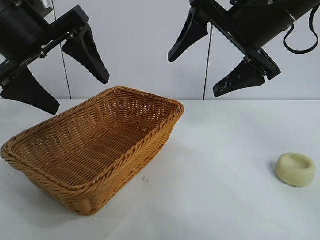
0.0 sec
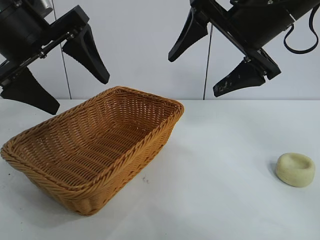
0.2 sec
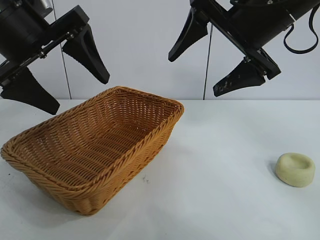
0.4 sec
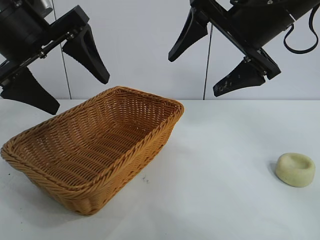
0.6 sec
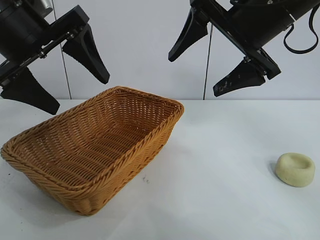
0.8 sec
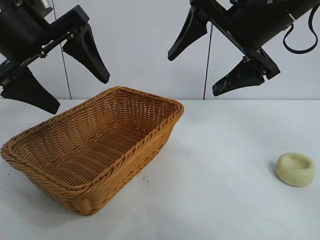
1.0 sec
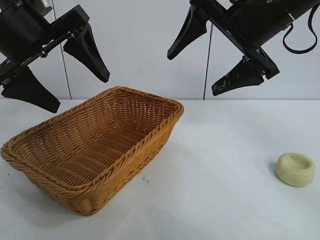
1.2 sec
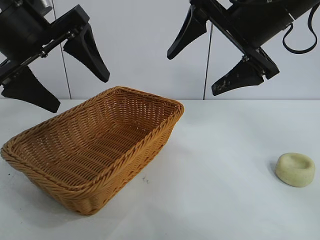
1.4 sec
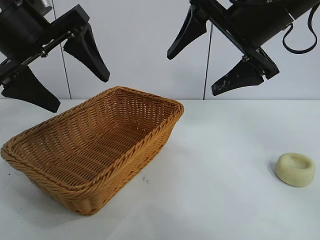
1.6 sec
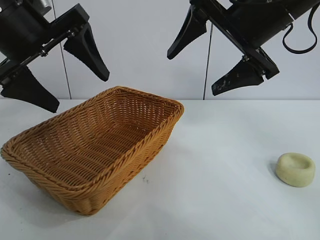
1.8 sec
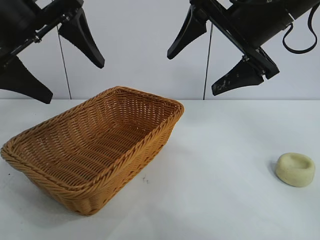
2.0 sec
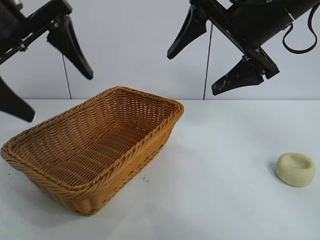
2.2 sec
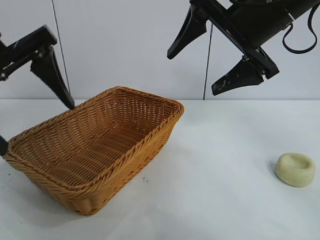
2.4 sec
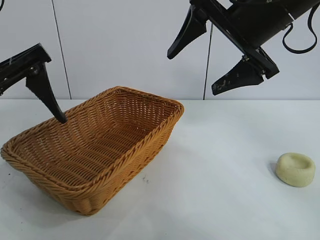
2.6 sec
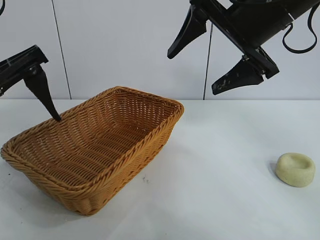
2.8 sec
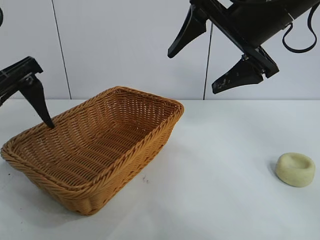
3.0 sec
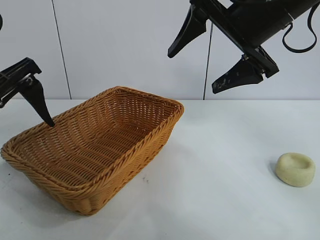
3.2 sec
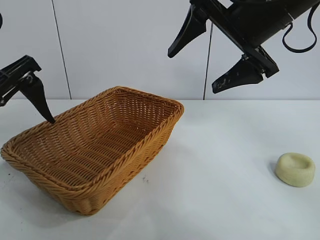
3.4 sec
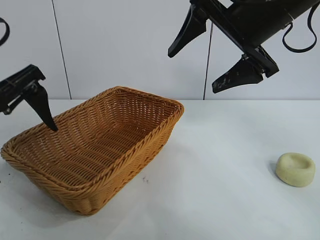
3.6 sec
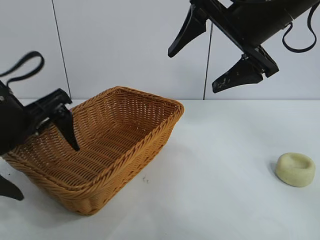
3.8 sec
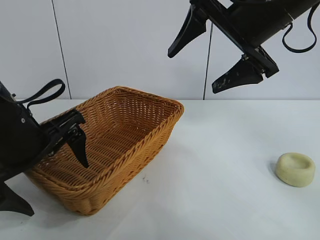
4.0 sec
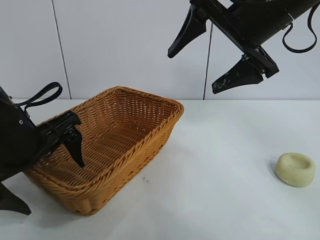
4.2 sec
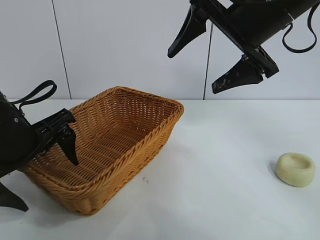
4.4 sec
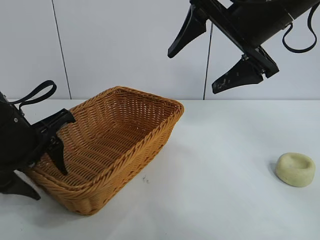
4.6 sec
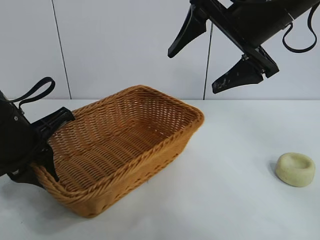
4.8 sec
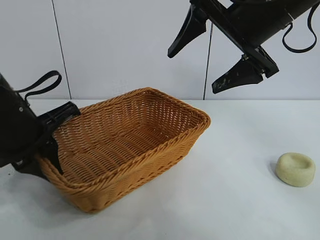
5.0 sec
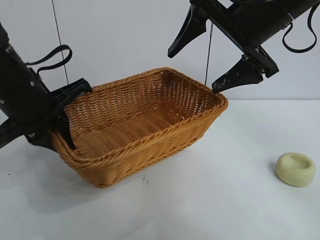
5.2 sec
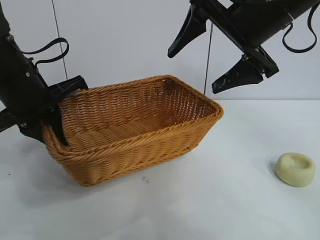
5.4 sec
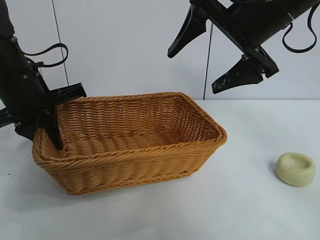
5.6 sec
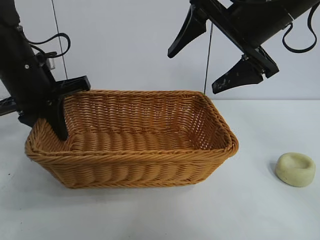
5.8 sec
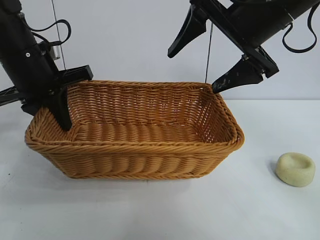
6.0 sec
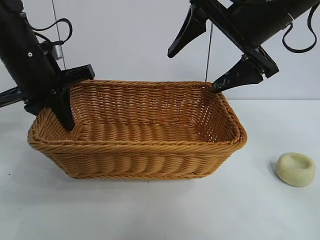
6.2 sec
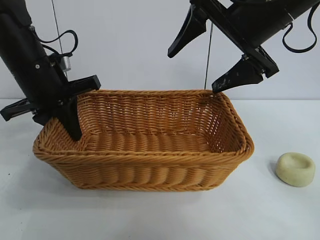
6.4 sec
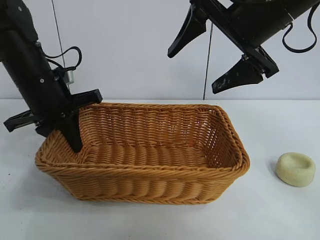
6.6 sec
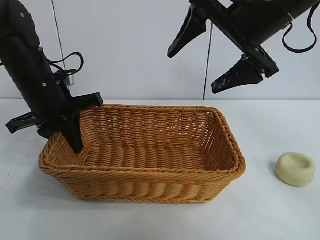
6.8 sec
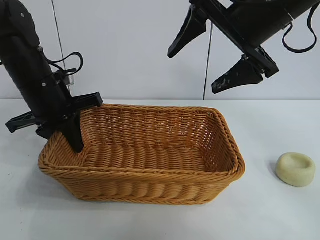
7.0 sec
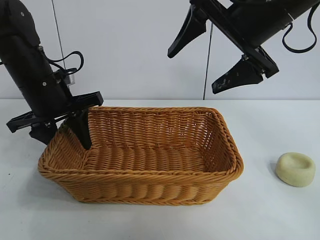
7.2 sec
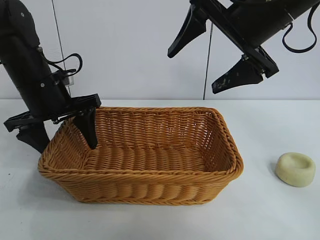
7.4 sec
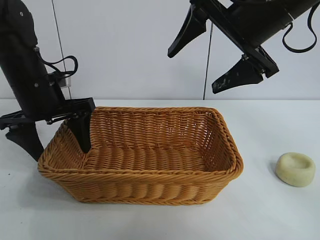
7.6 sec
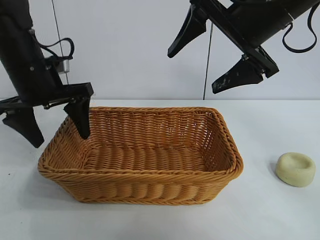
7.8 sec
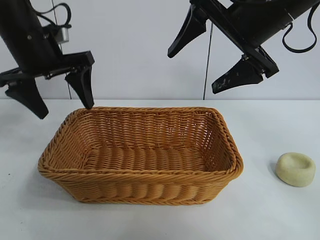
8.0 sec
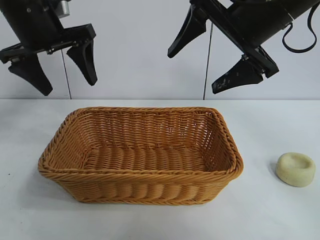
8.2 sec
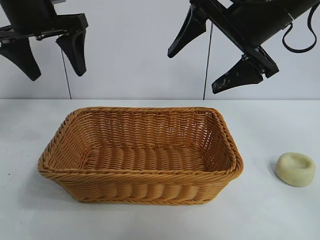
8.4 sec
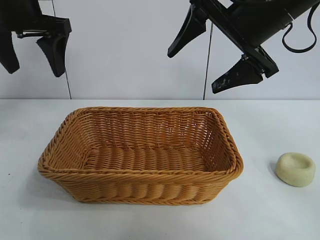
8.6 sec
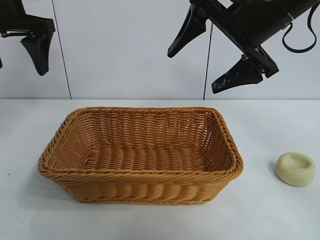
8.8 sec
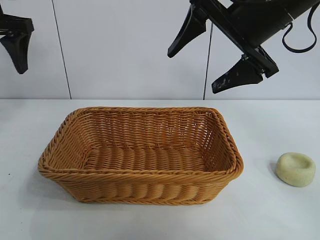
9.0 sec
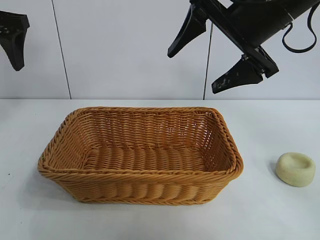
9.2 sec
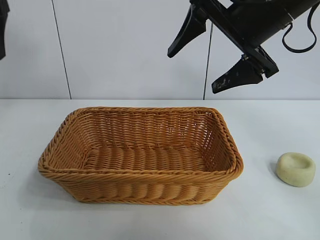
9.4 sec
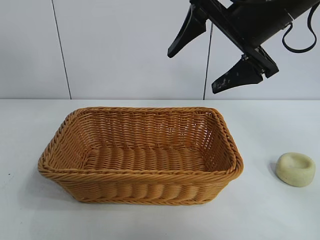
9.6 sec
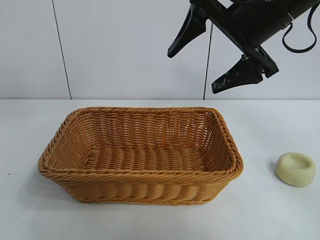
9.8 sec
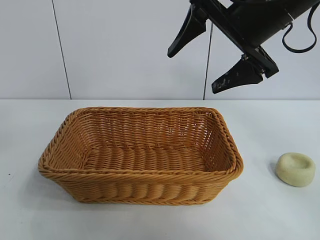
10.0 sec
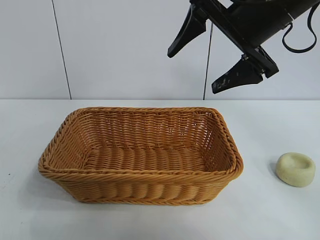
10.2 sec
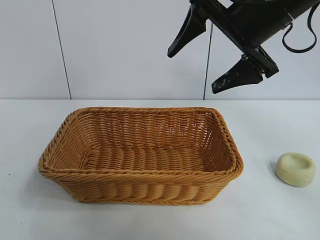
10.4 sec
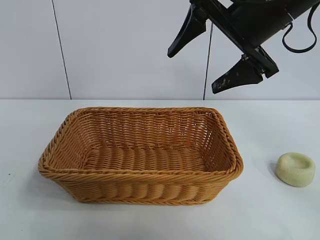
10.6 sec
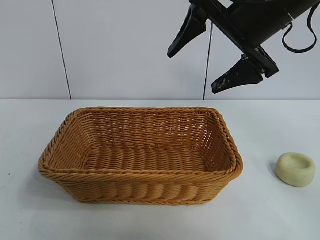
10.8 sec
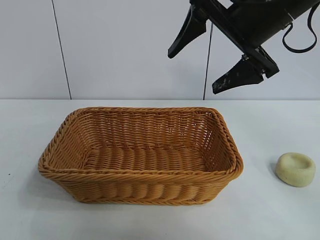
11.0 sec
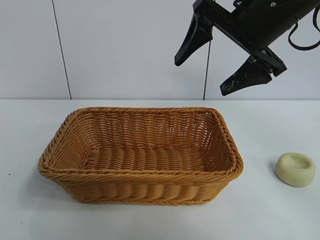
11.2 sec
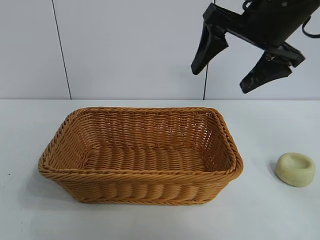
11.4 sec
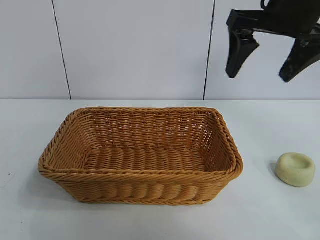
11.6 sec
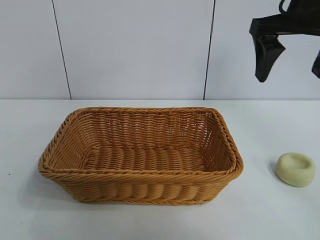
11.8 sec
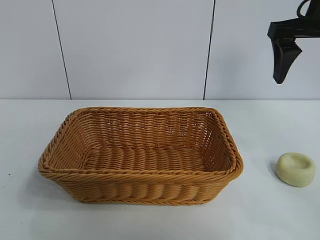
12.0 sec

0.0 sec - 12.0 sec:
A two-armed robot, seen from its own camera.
Task of the whole recording: pick up the egg yolk pastry and put it into the basket.
Step, 1.6 sec - 4.8 sec: Grasp the basket with left gripper.
Step, 5.0 sec - 7.6 sec: Place the basket in the center of view with left gripper.

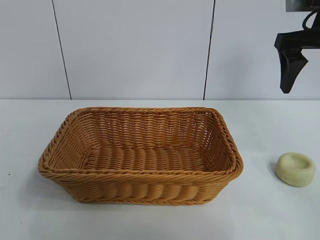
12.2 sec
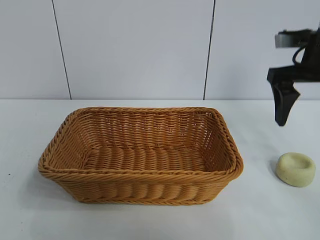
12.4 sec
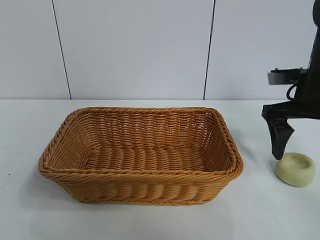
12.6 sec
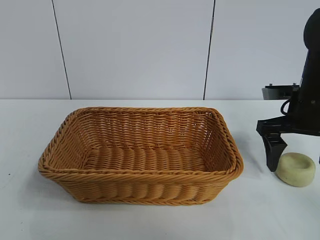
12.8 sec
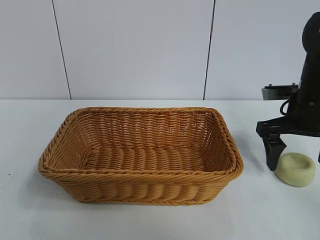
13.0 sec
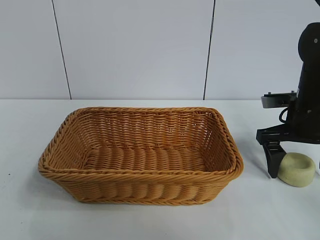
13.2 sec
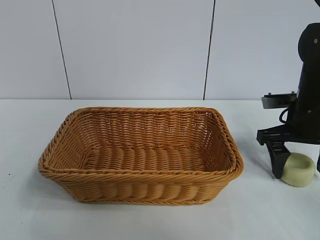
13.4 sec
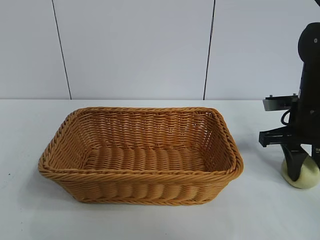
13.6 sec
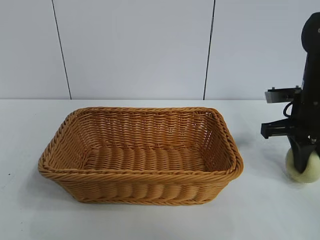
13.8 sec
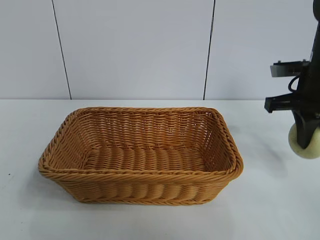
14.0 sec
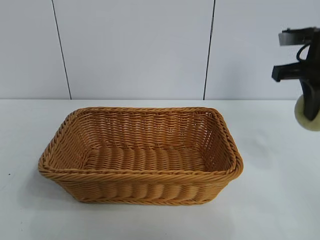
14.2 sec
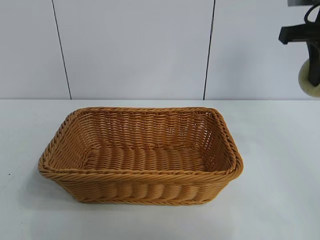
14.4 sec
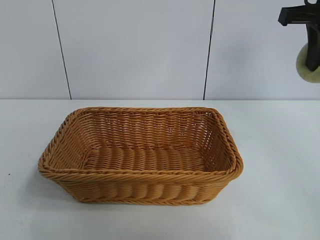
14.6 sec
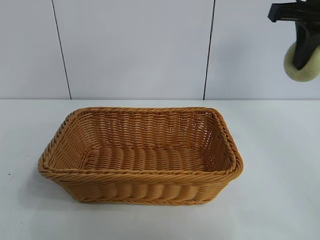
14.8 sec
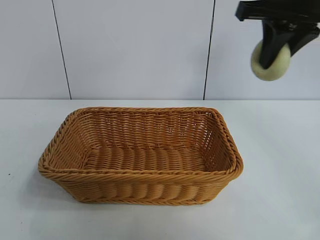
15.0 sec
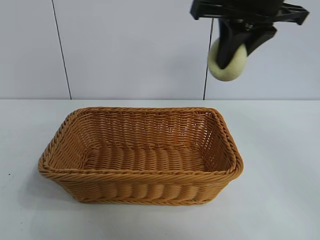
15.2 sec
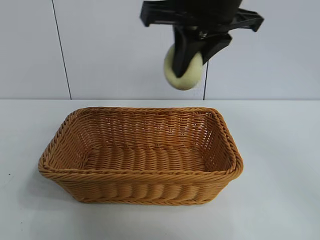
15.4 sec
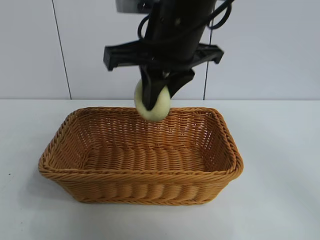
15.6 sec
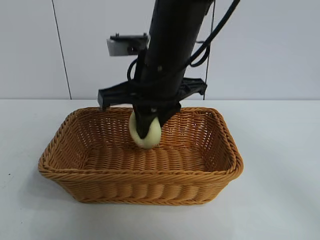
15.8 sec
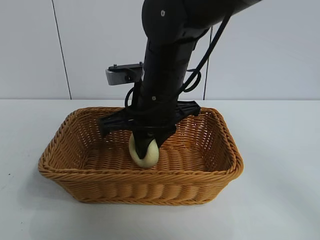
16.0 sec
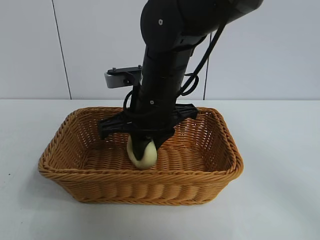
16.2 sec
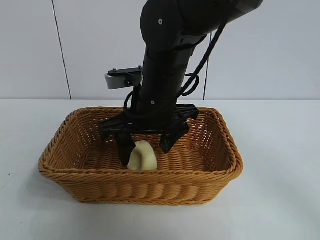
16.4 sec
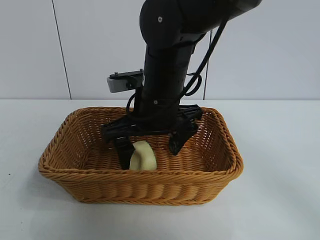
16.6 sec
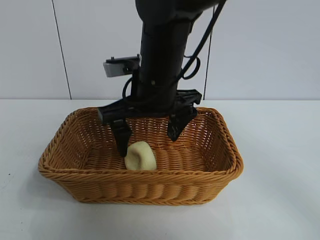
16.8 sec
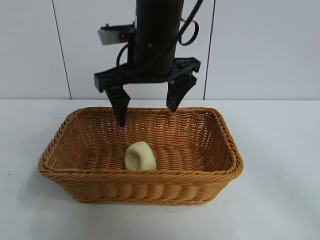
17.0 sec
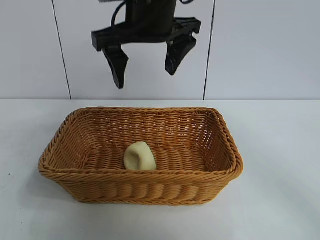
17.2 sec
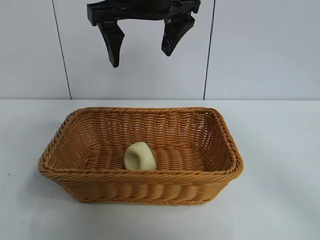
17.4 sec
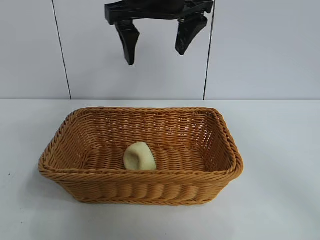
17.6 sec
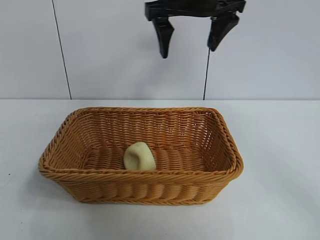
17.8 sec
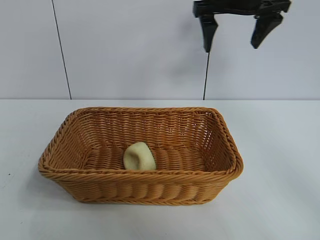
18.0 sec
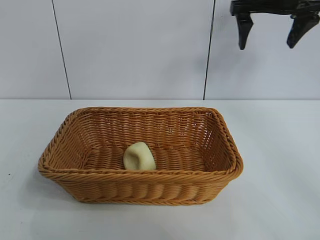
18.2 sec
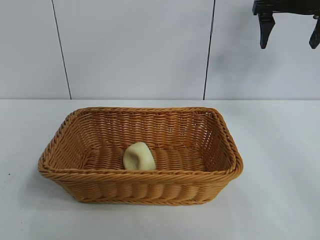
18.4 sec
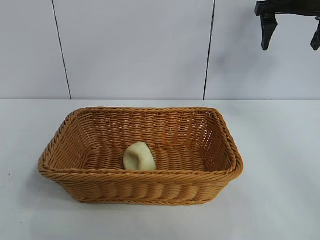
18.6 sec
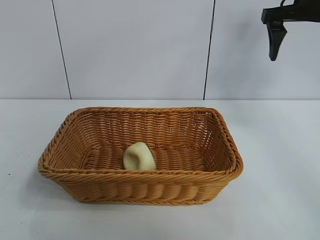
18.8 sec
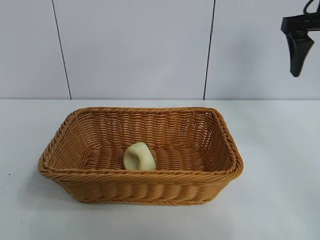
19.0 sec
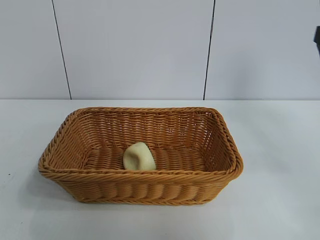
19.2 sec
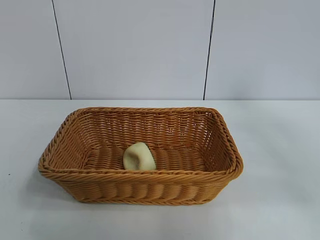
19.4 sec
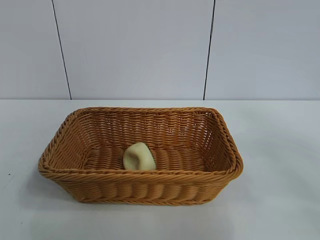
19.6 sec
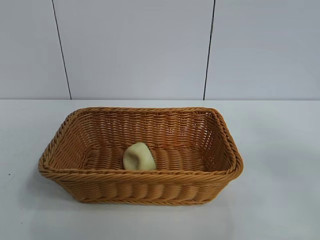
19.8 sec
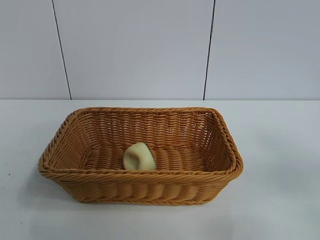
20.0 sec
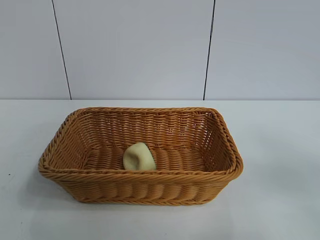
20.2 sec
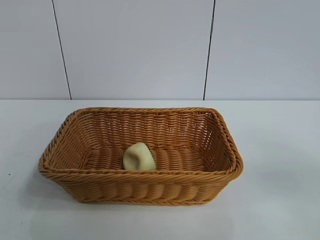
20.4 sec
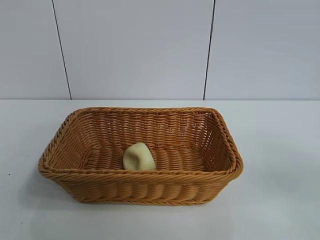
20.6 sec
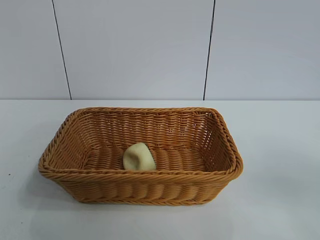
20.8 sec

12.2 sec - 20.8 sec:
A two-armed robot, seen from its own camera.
Task of the whole recording: pick up the egg yolk pastry and put it into the basket.
Step, 14.0 sec - 16.8 sec: Place the egg yolk pastry in the basket with right gripper.
